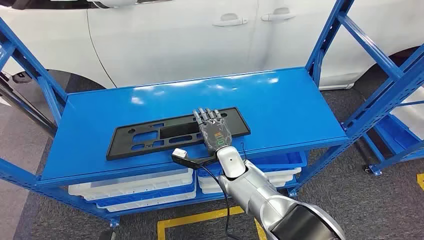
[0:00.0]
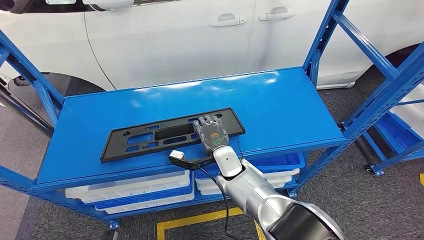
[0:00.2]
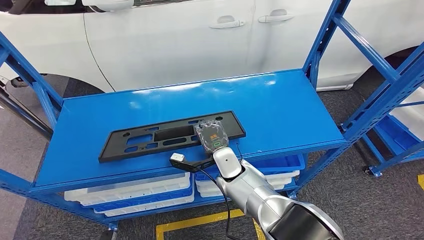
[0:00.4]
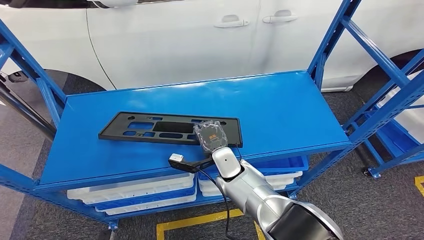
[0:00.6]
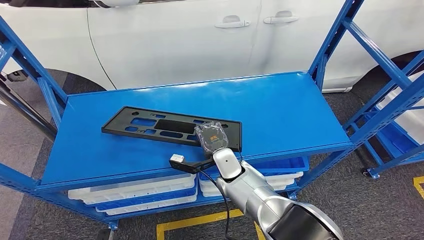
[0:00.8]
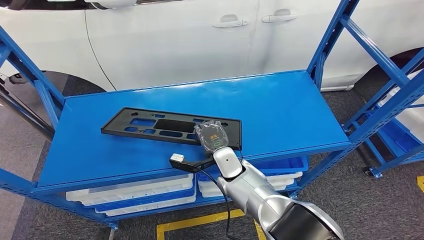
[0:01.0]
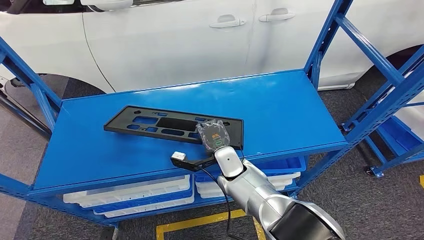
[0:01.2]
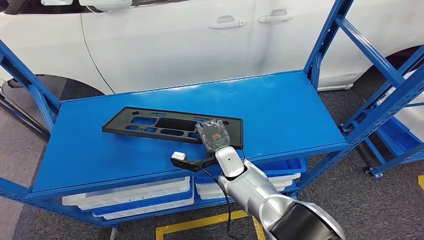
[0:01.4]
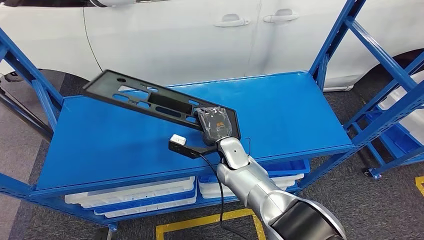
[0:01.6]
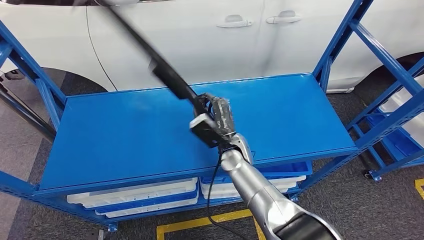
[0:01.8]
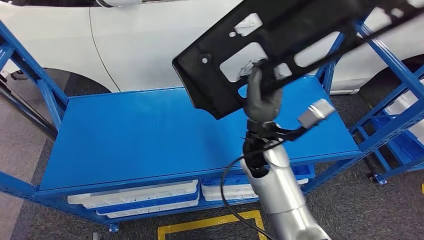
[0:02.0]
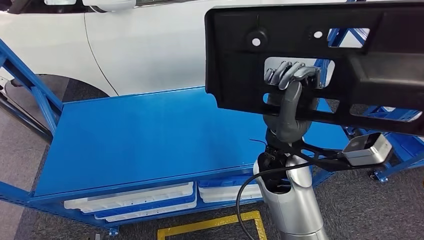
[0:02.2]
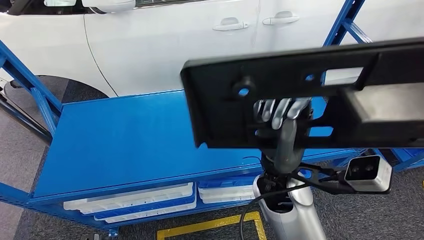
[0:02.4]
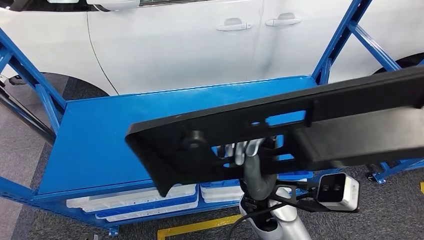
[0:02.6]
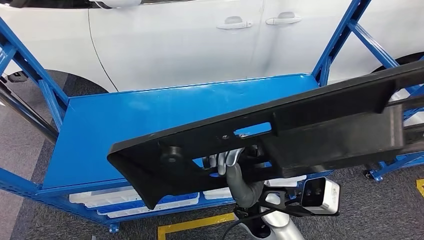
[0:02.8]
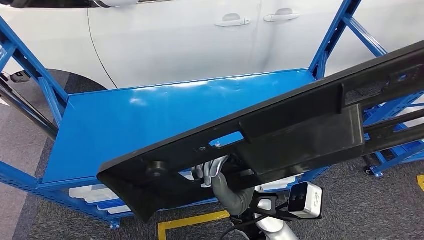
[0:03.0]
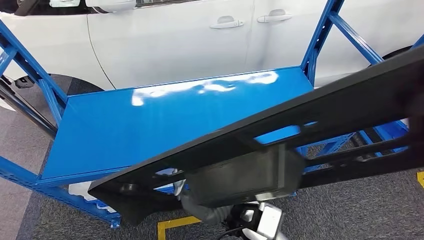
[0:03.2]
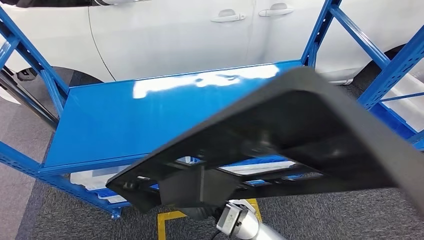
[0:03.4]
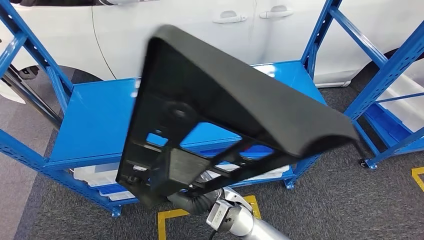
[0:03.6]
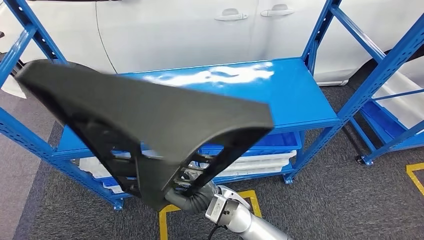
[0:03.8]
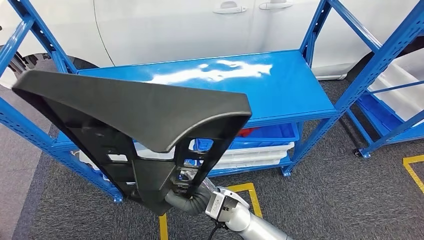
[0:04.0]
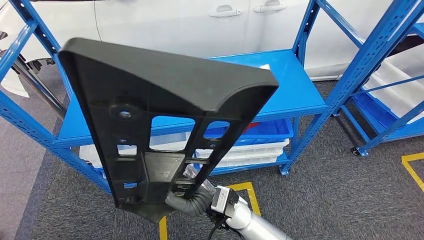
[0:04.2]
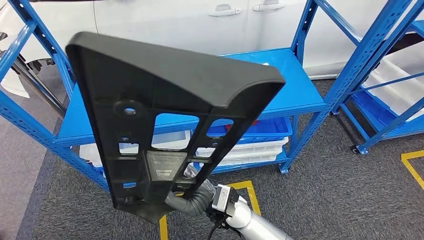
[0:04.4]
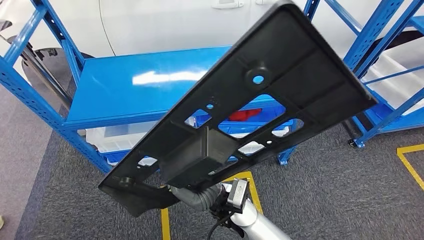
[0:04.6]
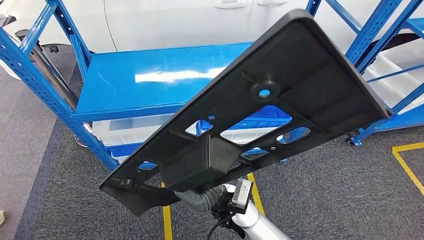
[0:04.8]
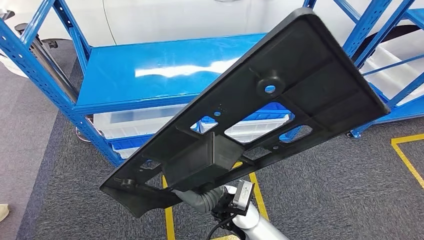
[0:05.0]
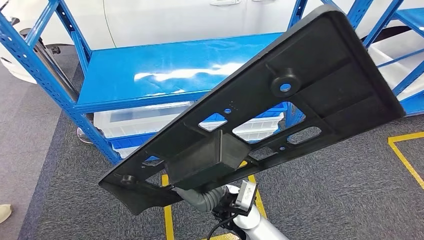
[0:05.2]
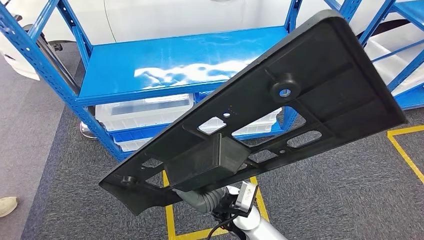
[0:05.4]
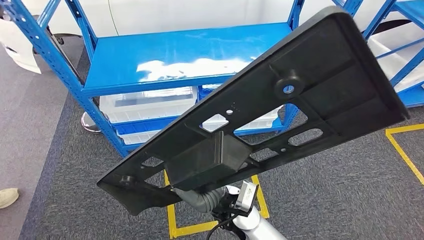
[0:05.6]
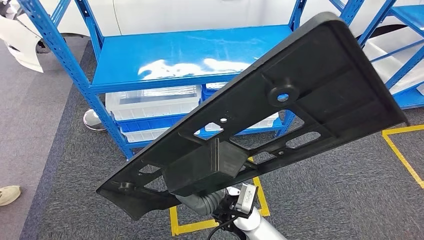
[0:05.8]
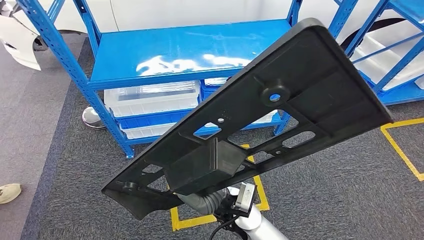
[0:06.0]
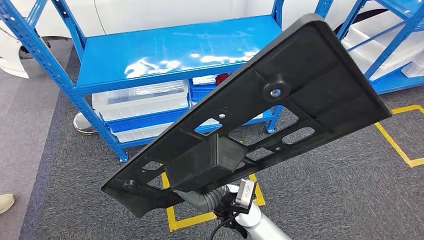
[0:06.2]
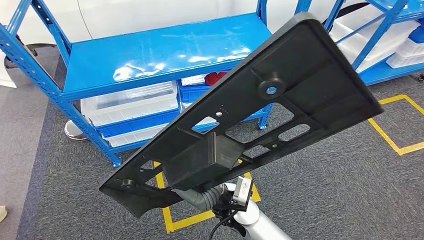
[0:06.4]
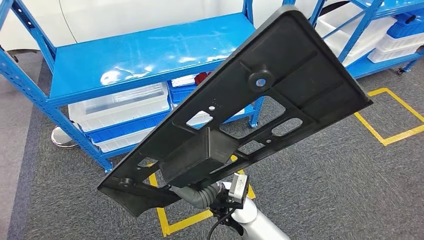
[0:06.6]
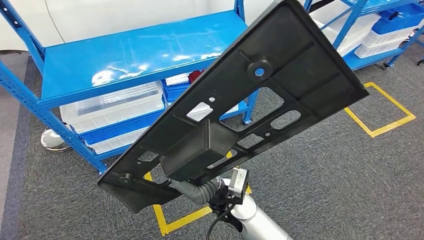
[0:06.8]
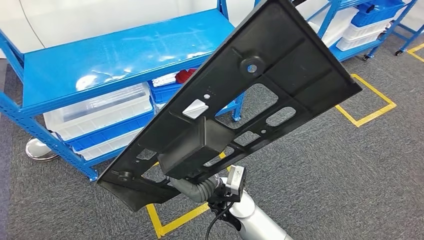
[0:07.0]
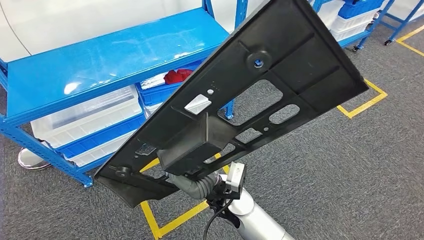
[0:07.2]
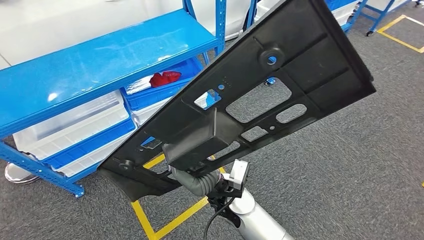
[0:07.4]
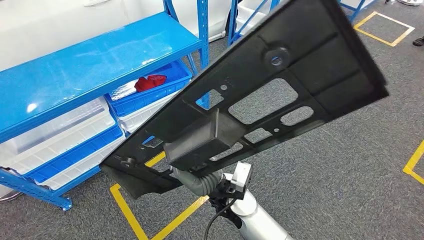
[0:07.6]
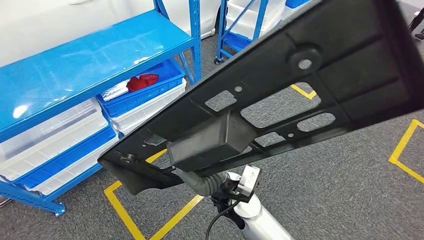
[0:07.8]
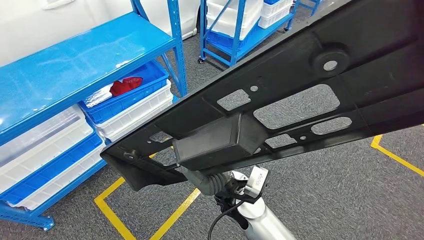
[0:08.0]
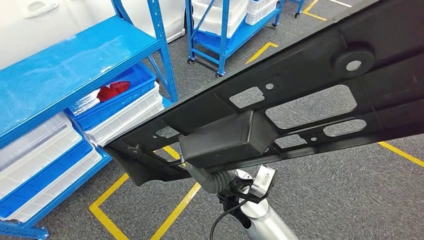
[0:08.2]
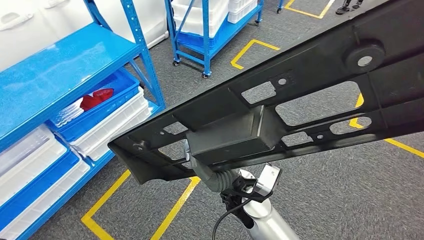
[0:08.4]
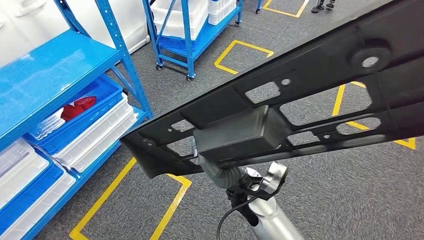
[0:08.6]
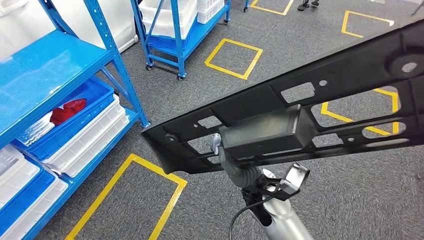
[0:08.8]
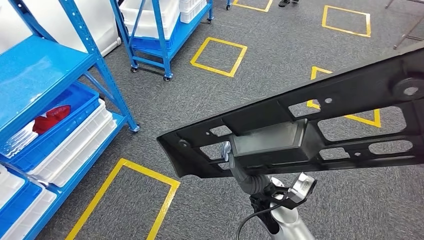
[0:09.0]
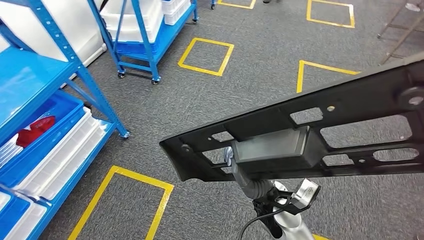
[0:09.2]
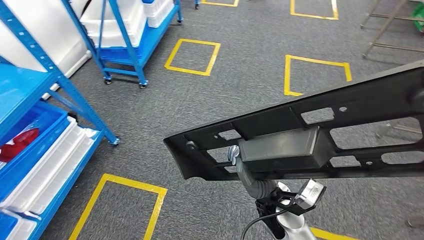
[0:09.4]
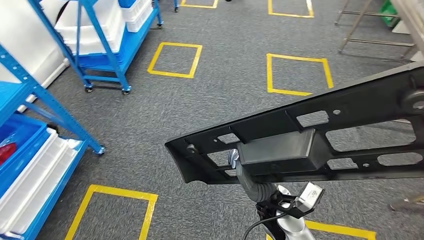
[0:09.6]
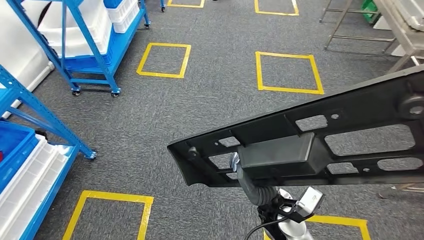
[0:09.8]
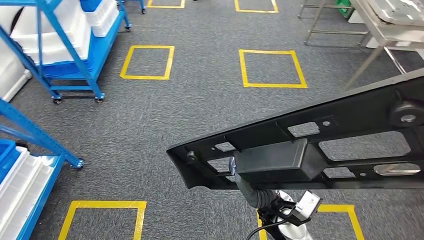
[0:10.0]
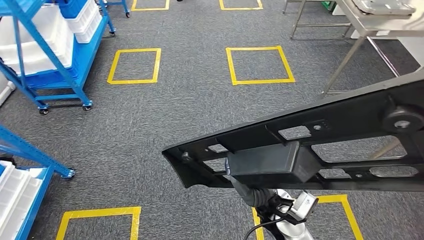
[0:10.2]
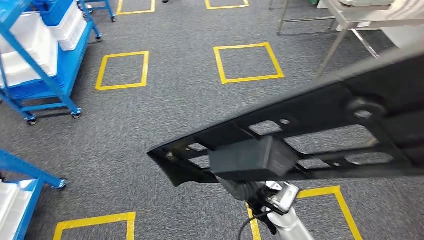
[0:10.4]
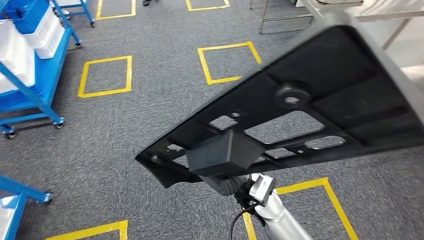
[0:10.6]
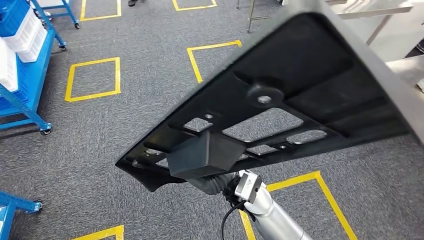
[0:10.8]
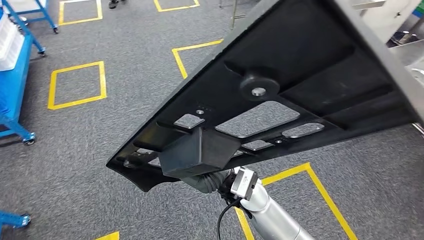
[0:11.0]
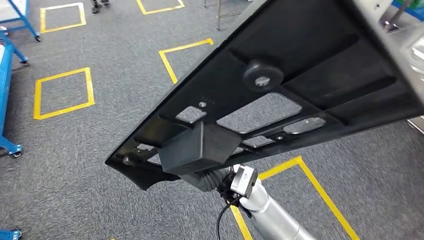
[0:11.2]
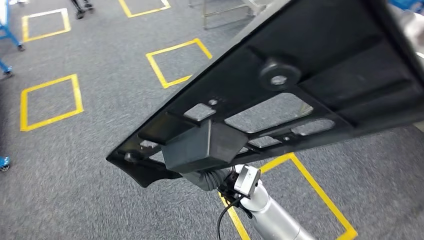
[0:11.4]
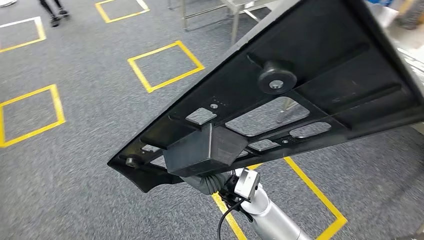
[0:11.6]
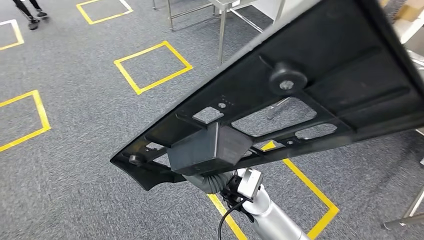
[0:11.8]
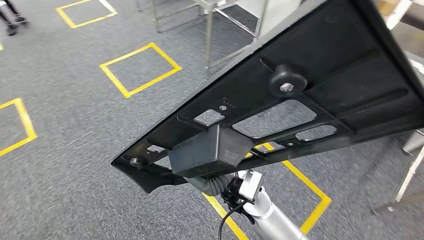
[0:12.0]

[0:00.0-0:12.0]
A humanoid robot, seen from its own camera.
Step, 0:00.0 to 0:02.0: Pick up the large material from the shelf.

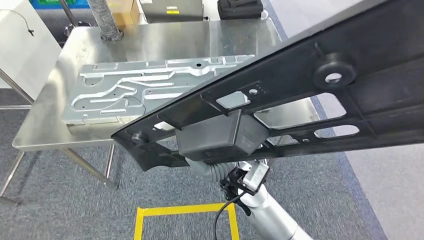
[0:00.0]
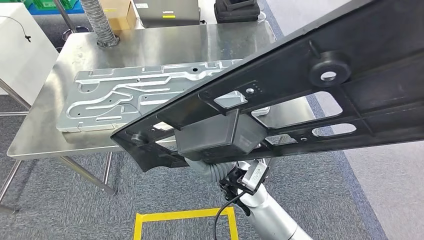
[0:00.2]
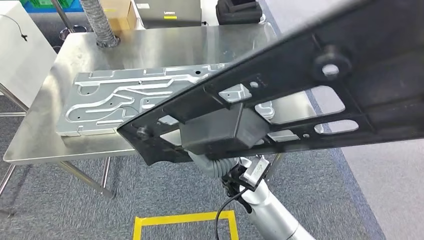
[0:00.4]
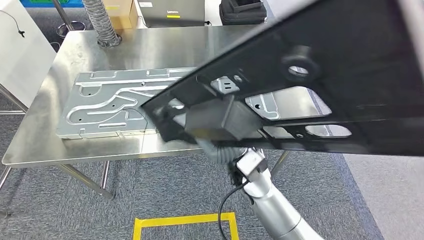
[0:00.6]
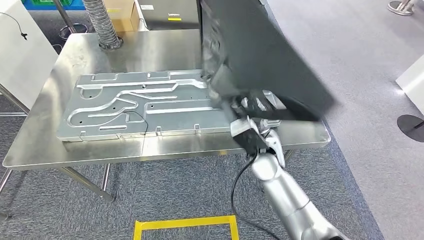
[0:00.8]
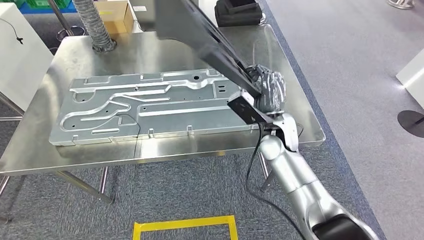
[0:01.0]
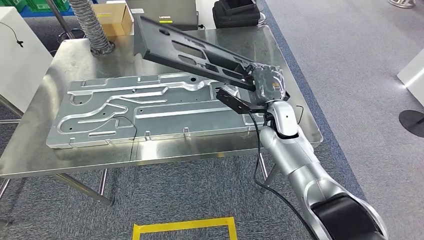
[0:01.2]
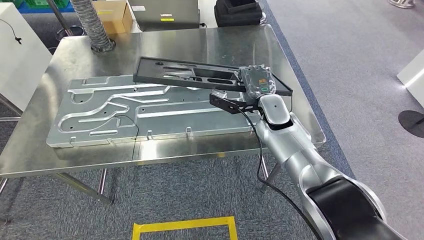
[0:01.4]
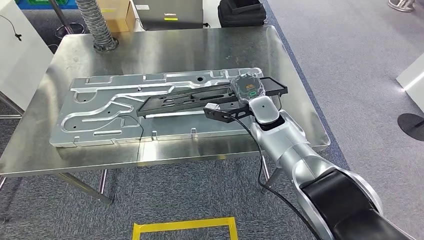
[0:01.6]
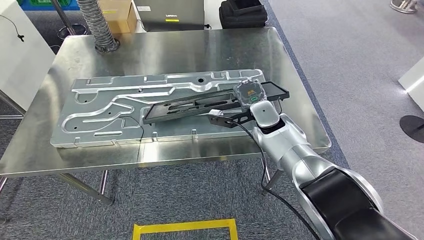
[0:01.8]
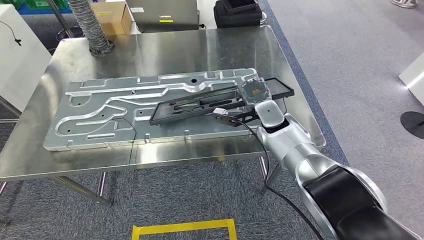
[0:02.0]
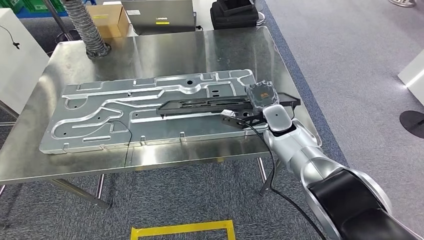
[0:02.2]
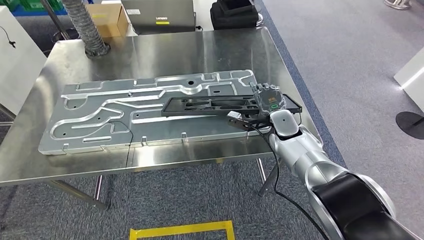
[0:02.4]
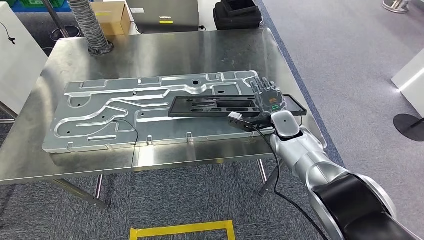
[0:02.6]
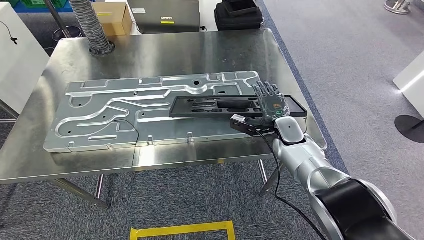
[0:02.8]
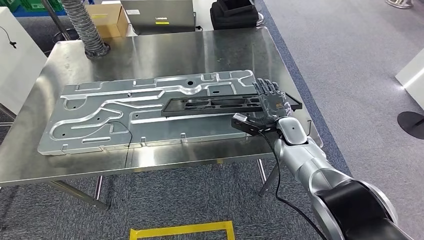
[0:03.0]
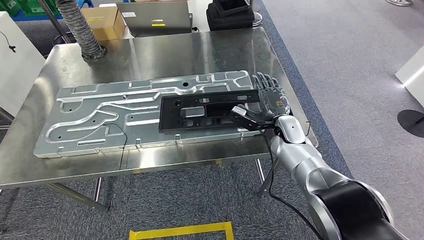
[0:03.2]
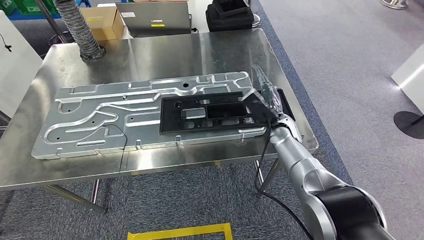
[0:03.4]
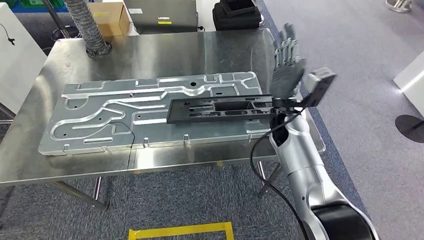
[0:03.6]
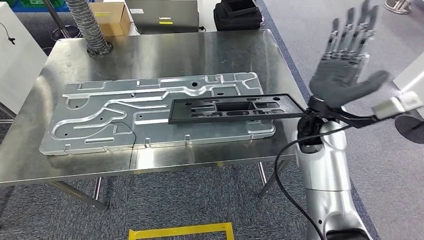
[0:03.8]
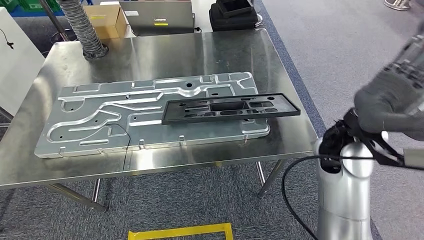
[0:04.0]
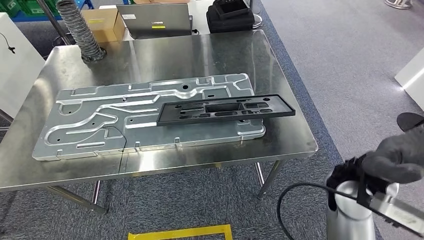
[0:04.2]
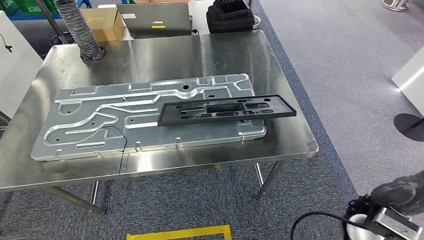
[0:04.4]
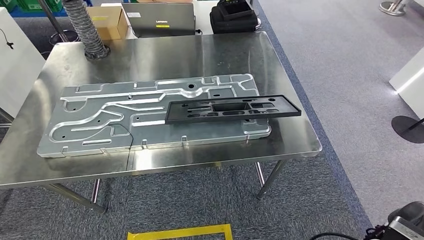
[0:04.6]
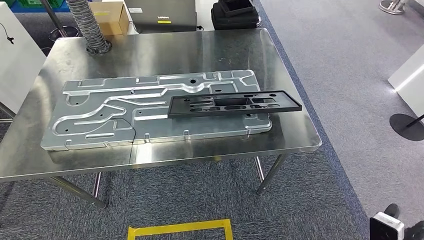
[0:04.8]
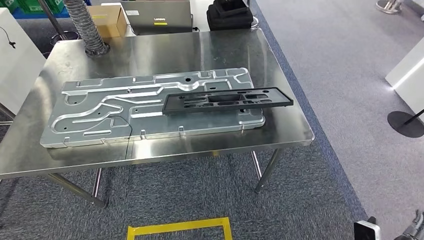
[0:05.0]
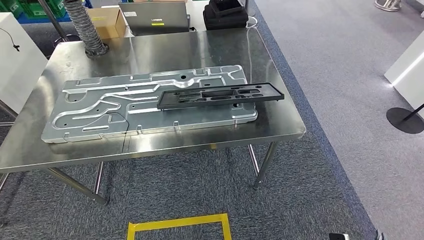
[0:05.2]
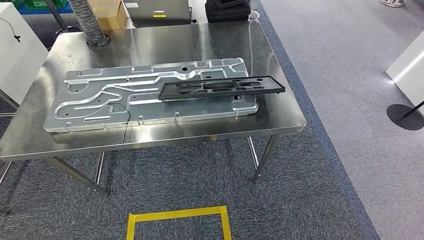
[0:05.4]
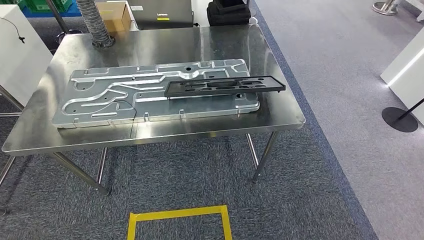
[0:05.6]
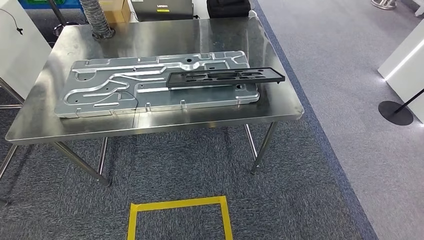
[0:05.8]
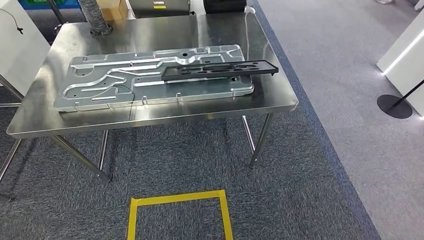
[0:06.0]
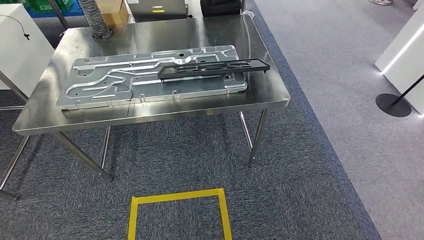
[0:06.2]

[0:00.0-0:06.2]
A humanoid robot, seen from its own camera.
Step, 0:01.8 to 0:04.6: Insert the large material into the corresponding slot on the workbench.
